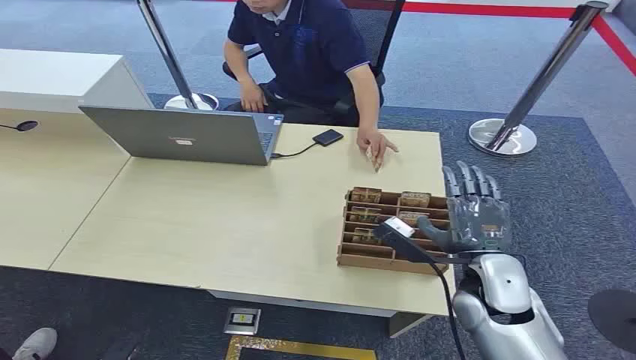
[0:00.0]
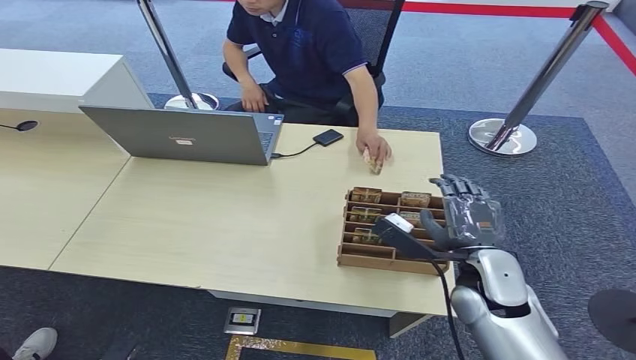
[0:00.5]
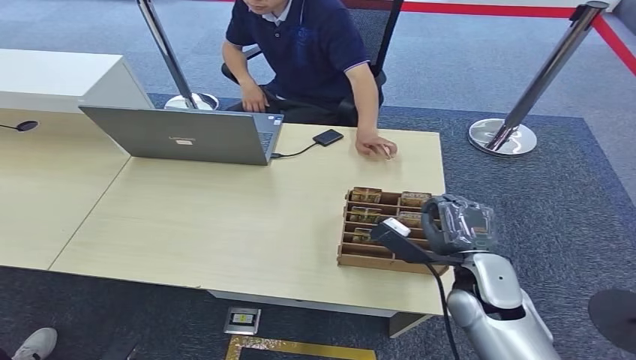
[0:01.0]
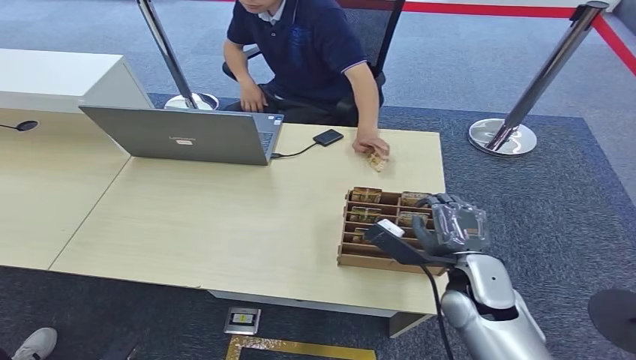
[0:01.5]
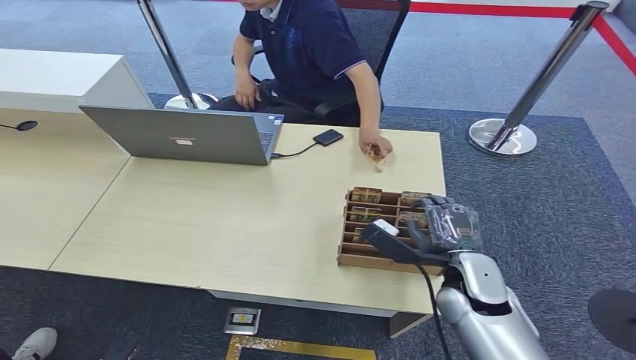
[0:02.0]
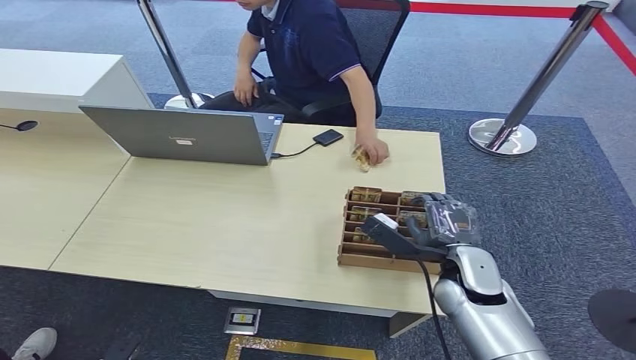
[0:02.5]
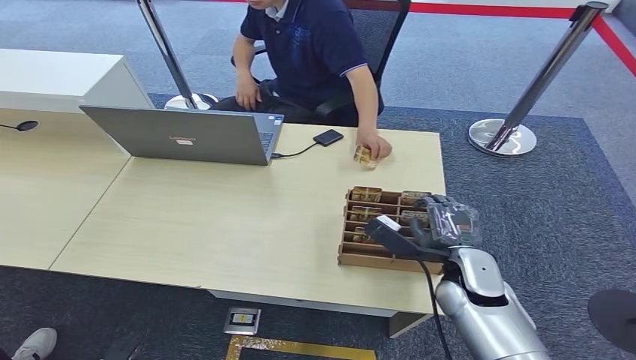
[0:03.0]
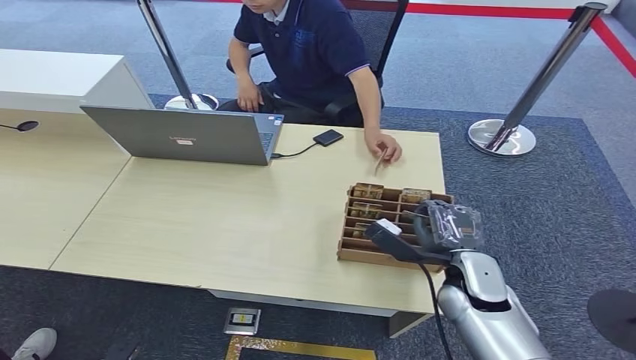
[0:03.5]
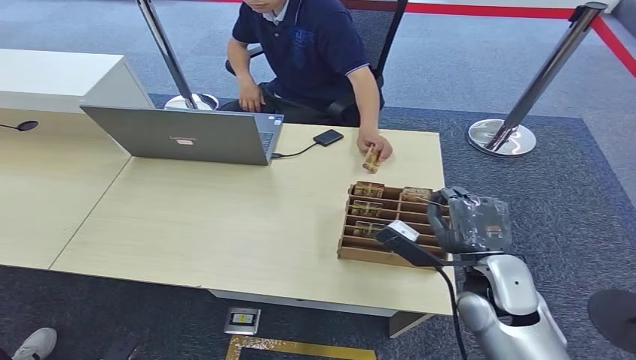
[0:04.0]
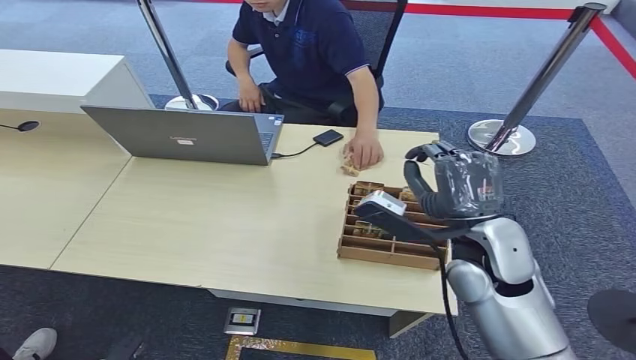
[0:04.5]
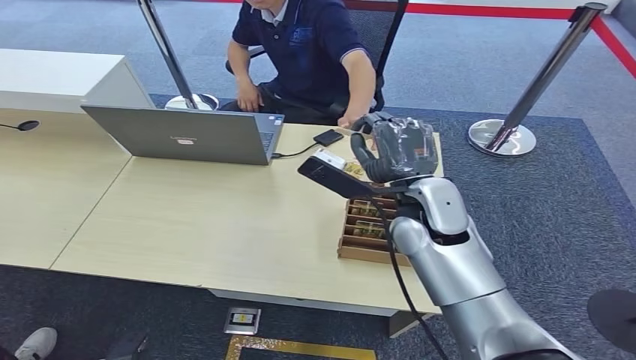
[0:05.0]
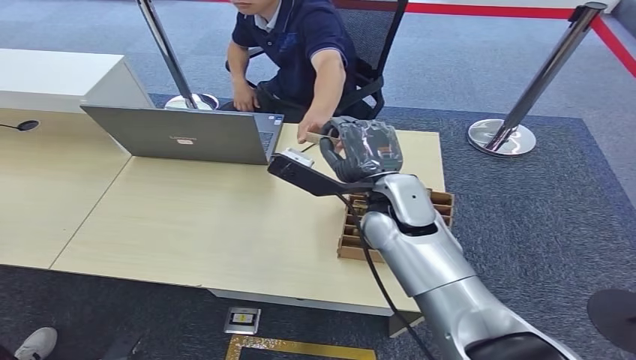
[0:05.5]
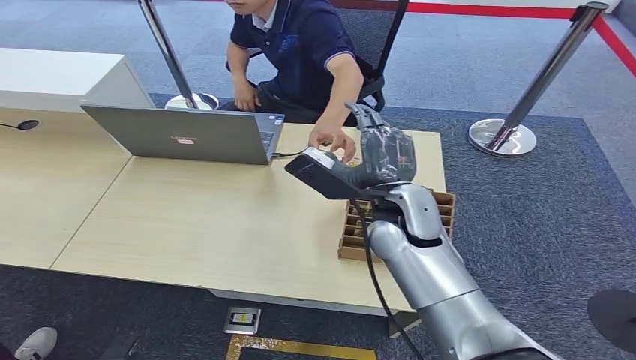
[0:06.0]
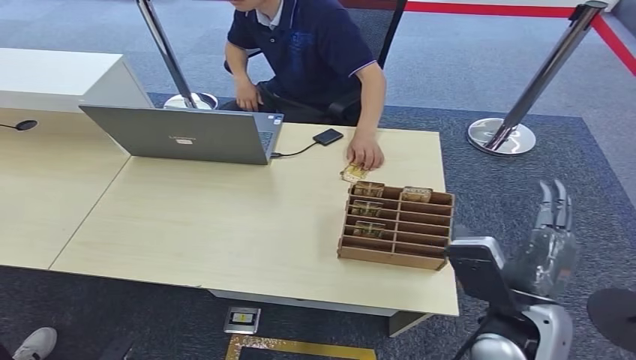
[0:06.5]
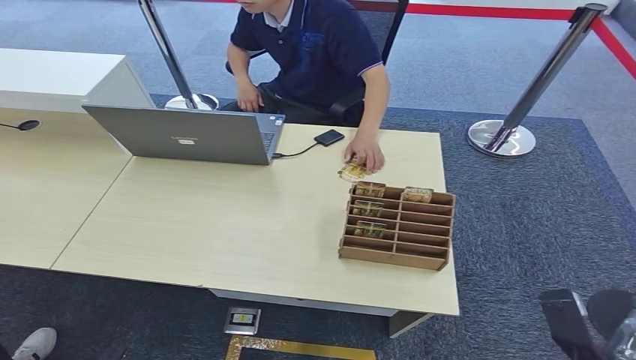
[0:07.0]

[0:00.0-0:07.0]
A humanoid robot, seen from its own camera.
Step, 0:00.0 to 0:04.5: Pick up the room card from the card holder.
Step, 0:05.0 to 0:07.0: Hand the room card to the target.
0:02.0 to 0:03.5: The hands move only a little.
0:03.5 to 0:05.0: The right hand shifts some 20 cm upward, to the left and forward.
0:05.0 to 0:07.0: The right hand heads backward, to the right and downward, covering approximately 35 cm.

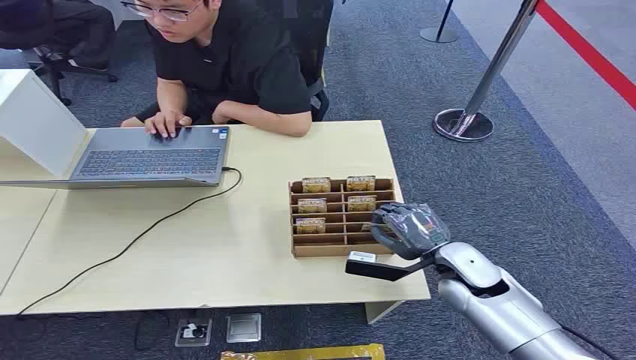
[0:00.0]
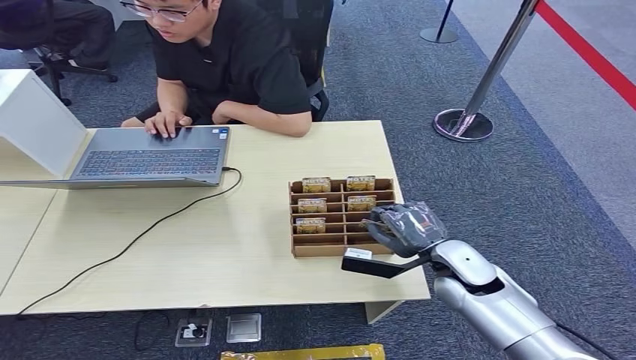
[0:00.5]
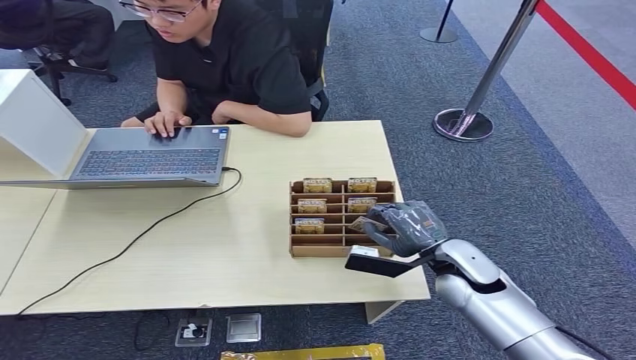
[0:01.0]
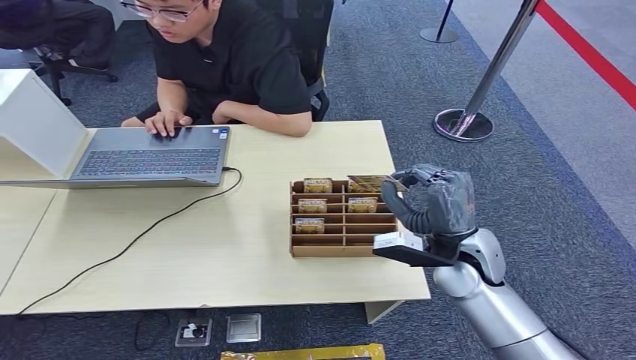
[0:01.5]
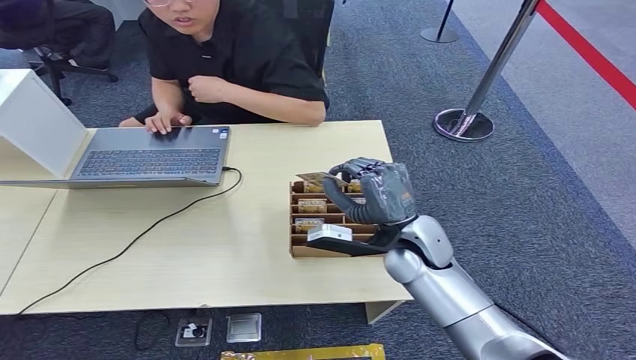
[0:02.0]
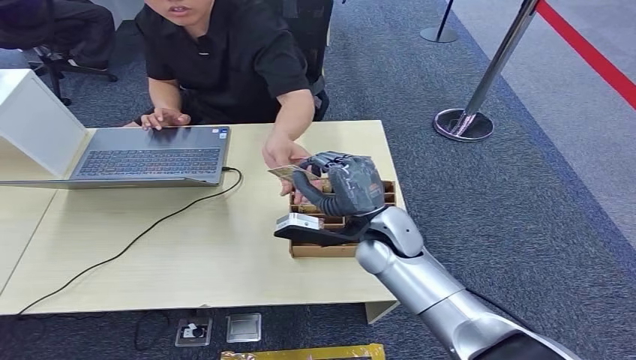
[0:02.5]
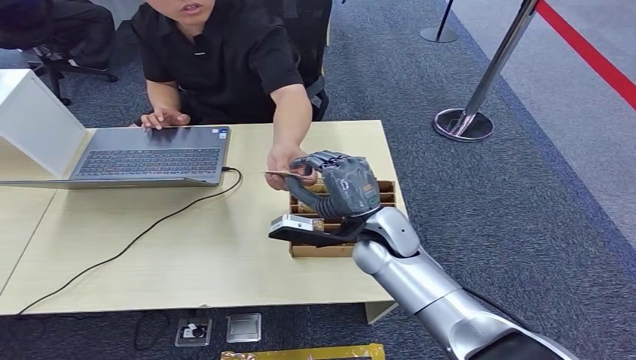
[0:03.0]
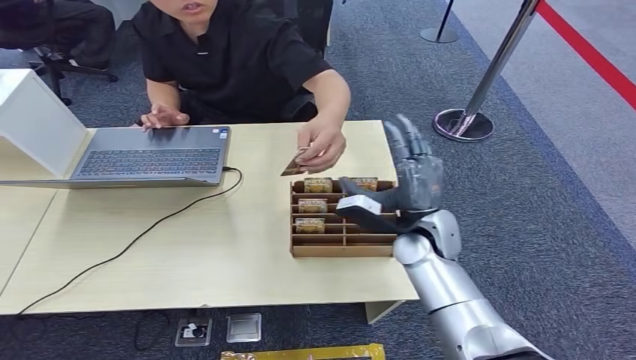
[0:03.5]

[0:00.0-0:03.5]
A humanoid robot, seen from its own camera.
Step, 0:00.0 to 0:01.0: Pick up the room card from the card holder.
Step, 0:01.5 to 0:03.5: Hand the room card to the target.
0:02.0 to 0:03.5: There are only small adjustments of the hands.

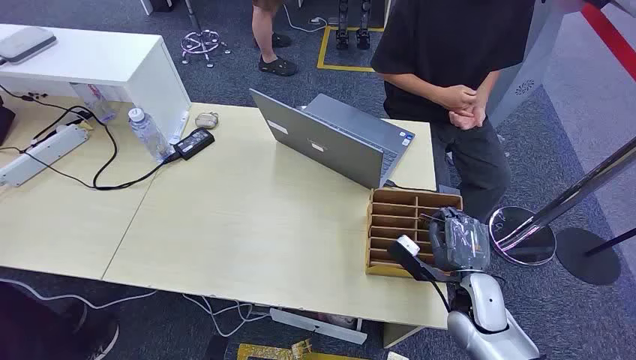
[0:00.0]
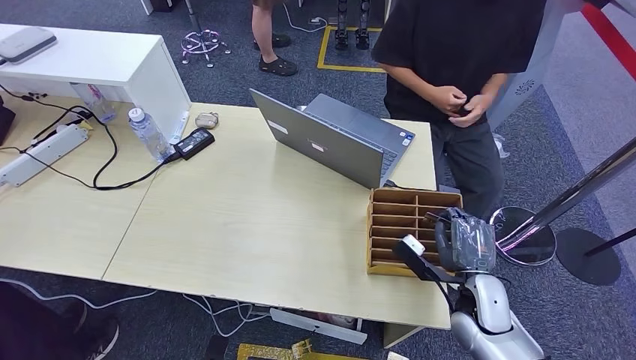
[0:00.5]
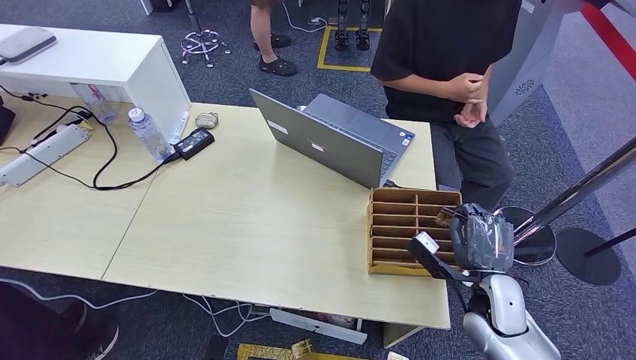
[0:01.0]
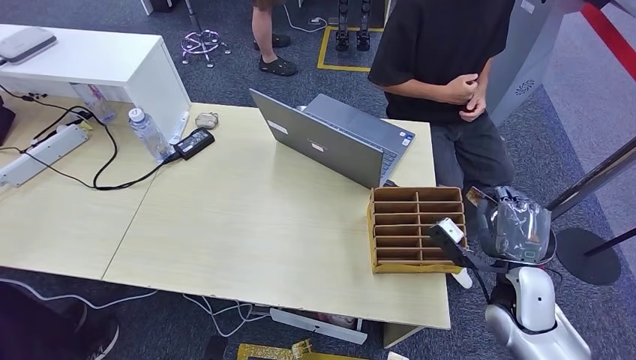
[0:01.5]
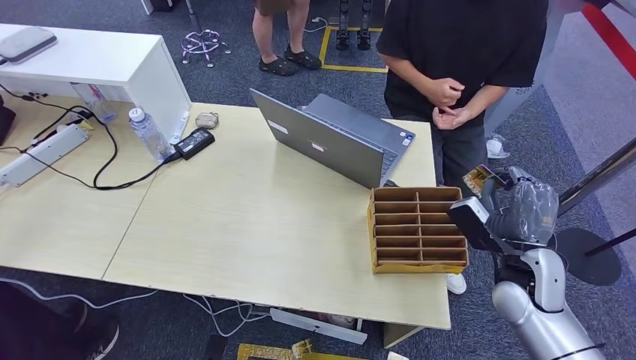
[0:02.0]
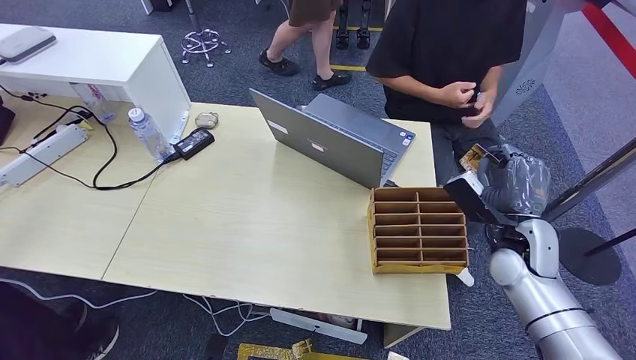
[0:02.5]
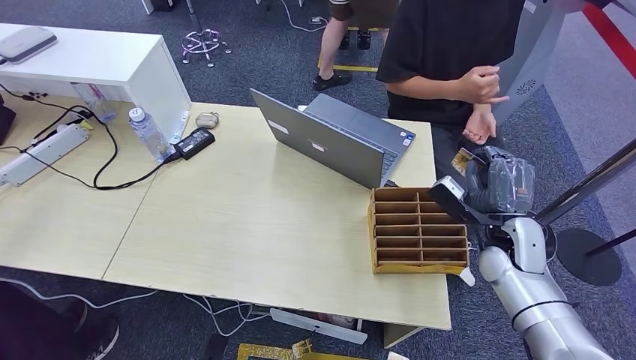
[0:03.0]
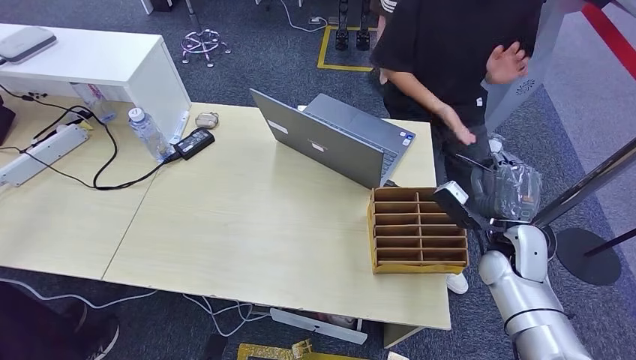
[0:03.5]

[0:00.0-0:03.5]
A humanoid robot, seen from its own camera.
Step, 0:00.0 to 0:01.5: Pick up the room card from the card holder.
Step, 0:02.0 to 0:03.5: Hand the room card to the target.
0:02.0 to 0:03.5: The right hand is displaced forward by some 5 cm.

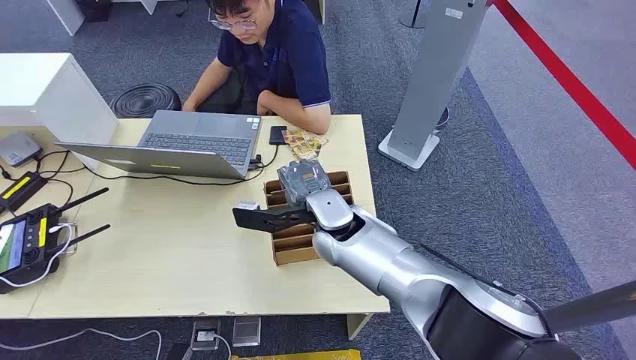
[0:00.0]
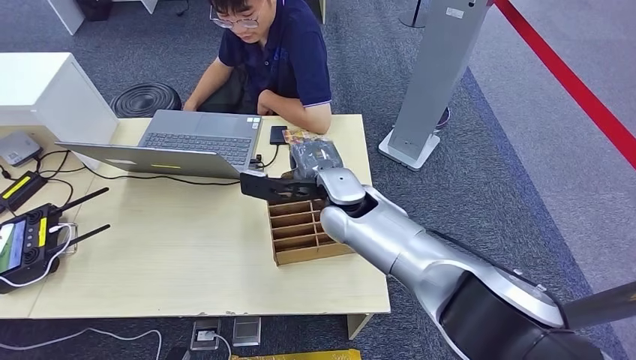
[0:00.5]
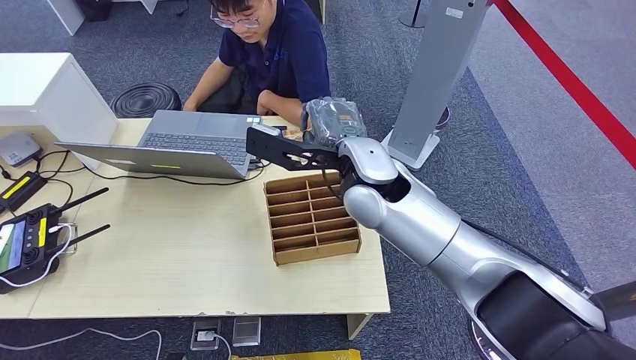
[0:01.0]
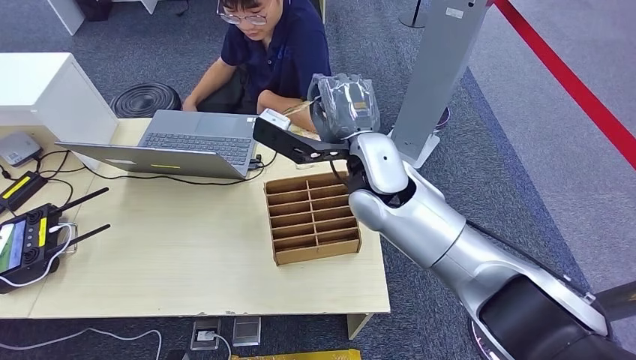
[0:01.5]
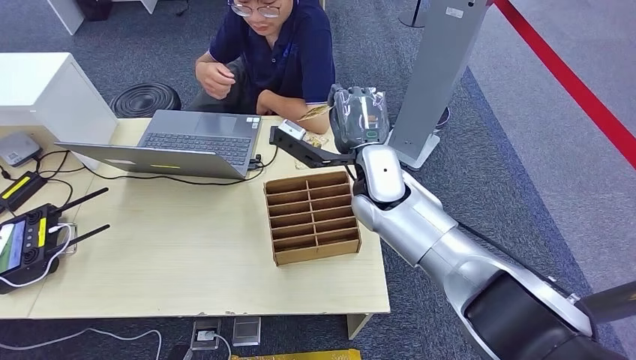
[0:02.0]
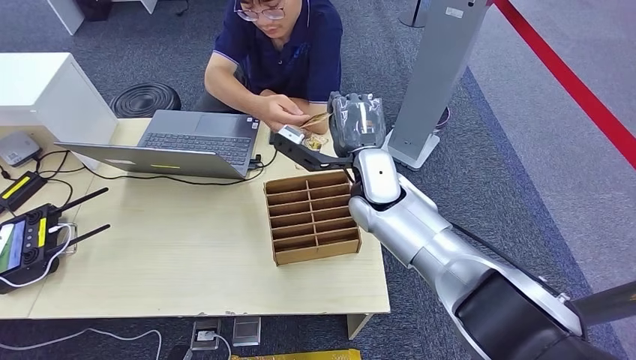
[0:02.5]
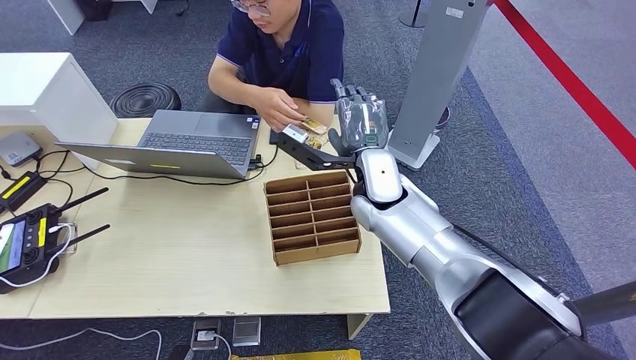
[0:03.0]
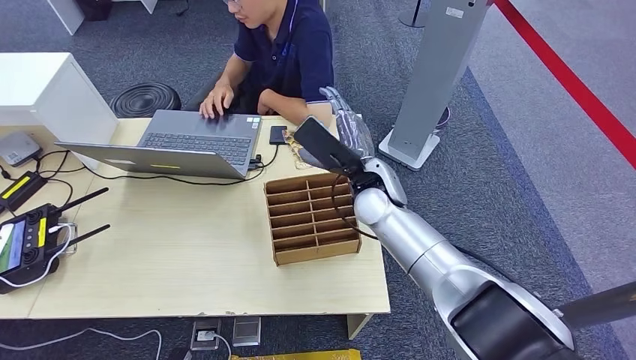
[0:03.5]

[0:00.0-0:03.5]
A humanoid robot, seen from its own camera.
Step, 0:00.0 to 0:01.0: Pick up the room card from the card holder.
Step, 0:01.5 to 0:03.5: Hand the room card to the target.
